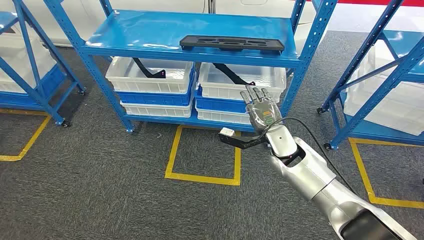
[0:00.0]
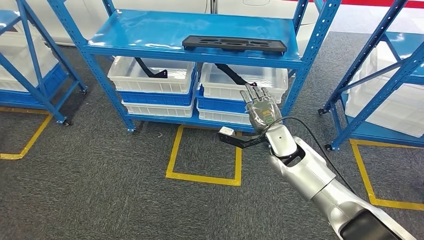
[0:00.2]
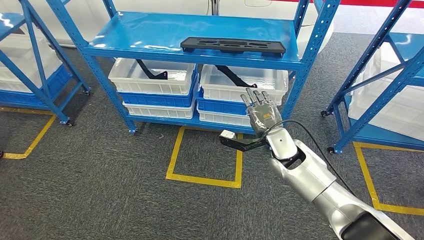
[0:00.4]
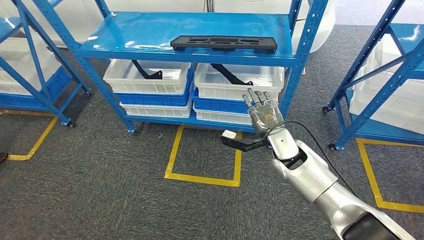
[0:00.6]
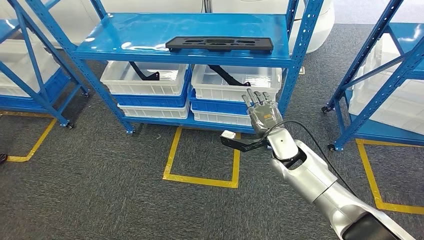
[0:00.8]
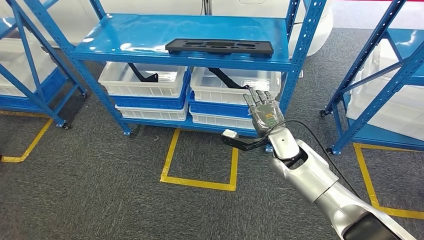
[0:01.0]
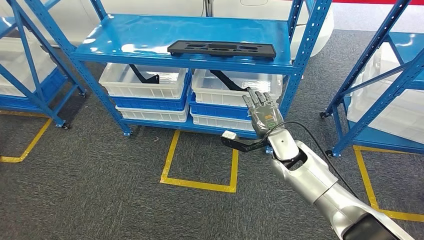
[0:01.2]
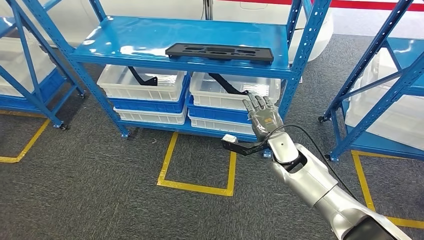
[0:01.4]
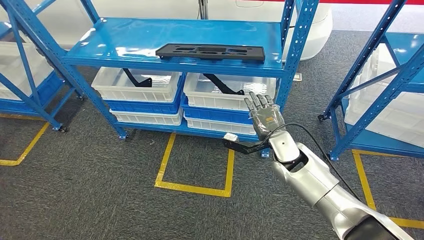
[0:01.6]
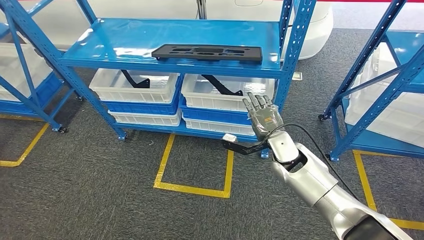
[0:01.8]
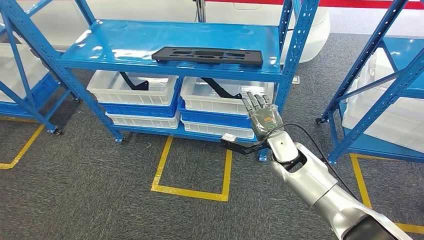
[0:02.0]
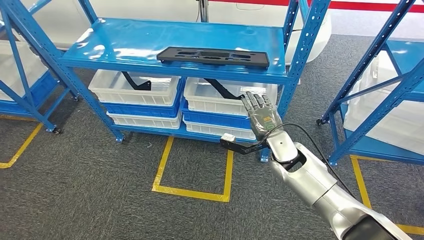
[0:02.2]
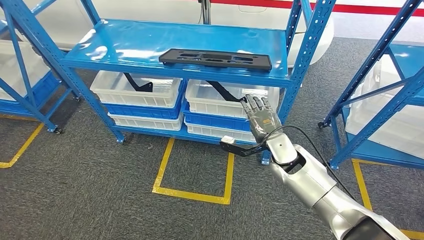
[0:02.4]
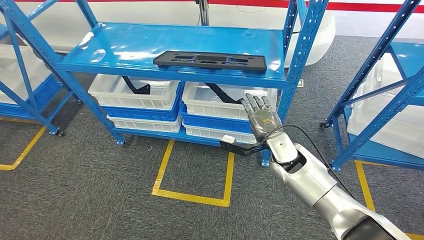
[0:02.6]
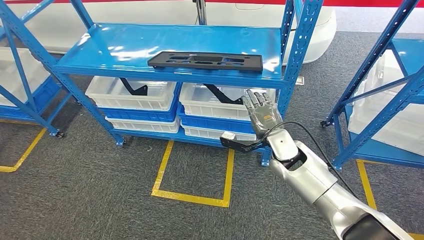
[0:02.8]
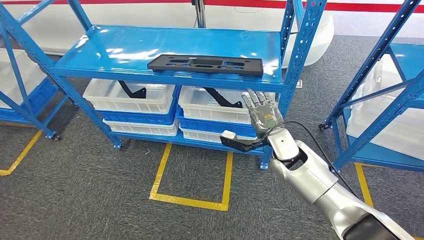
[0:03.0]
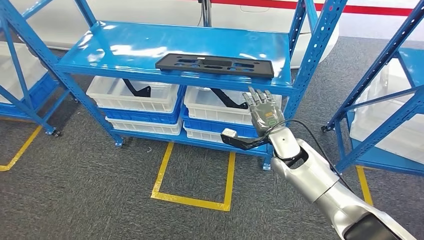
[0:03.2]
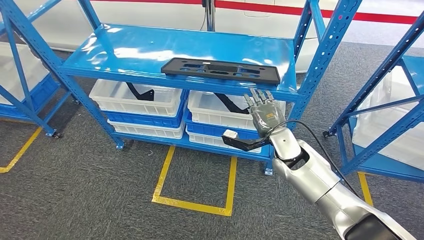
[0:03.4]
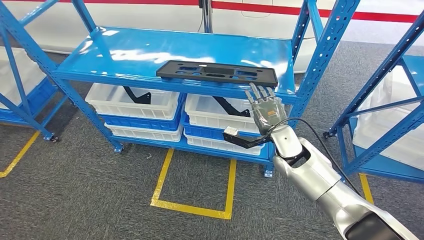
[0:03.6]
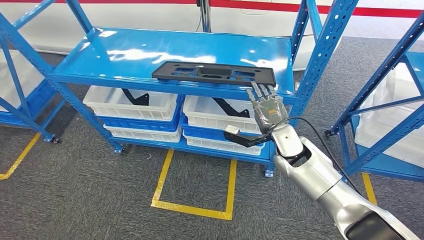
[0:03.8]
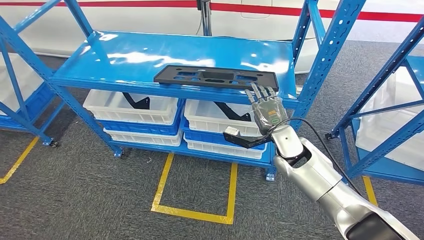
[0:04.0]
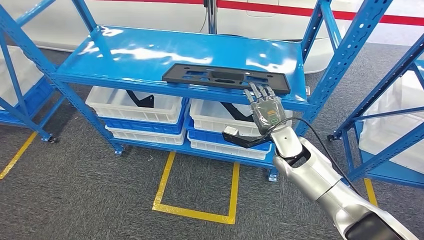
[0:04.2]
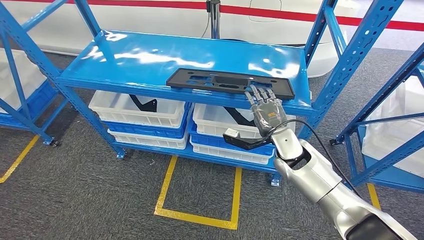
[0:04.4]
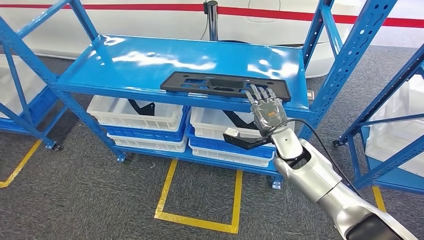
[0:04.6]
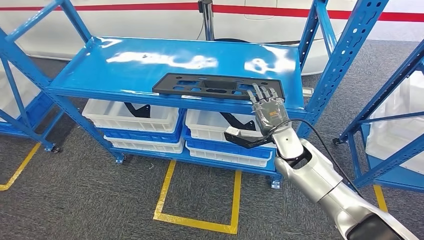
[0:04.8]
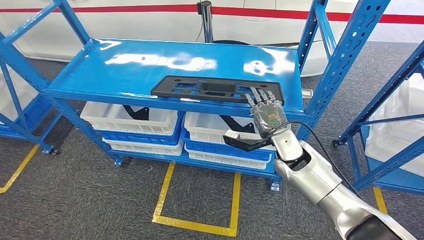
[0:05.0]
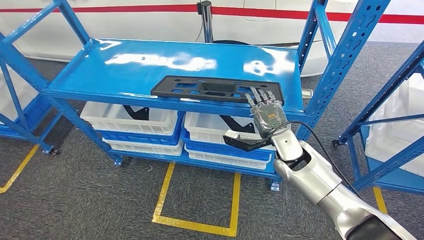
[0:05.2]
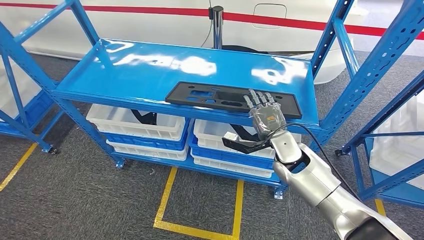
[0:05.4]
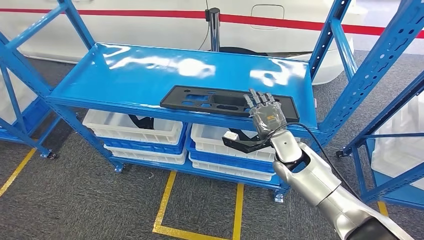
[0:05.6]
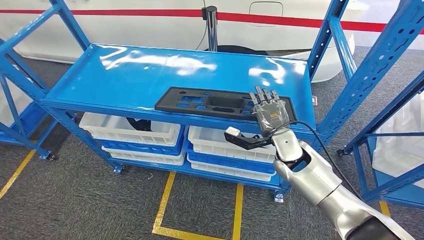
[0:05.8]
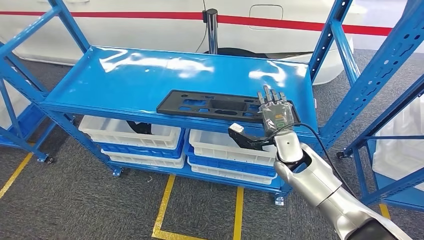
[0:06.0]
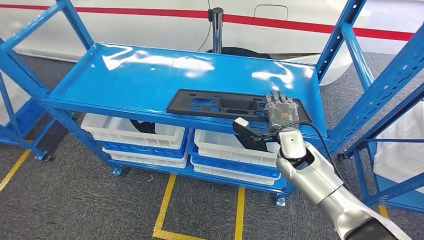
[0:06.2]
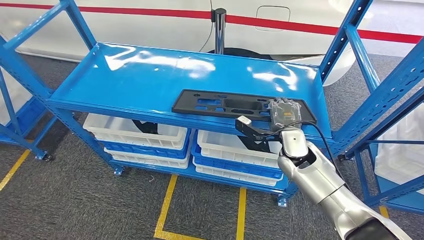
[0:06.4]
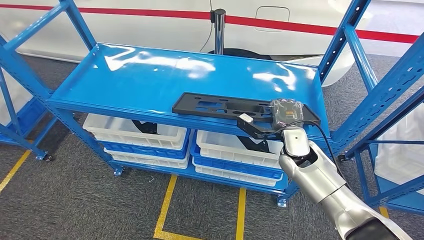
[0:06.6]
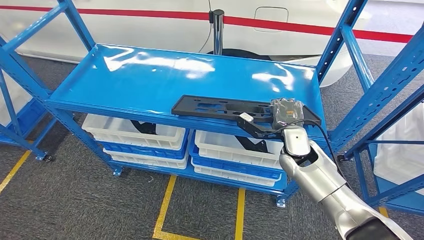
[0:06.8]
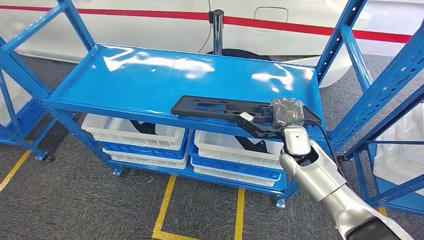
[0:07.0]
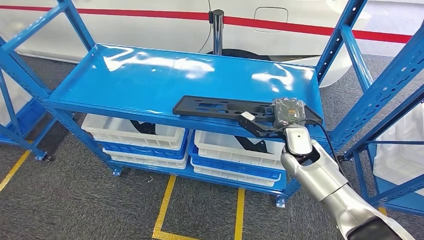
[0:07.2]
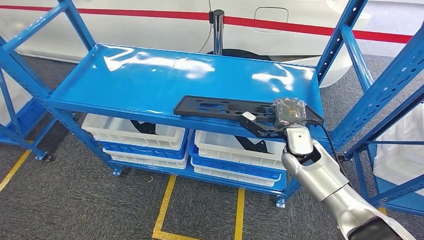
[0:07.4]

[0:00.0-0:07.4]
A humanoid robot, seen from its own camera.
Step, 0:00.0 to 0:07.4: Pick up the large material from the shelf.
